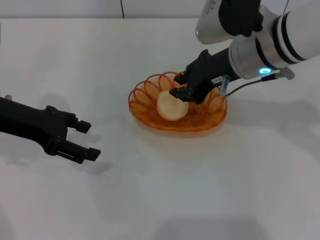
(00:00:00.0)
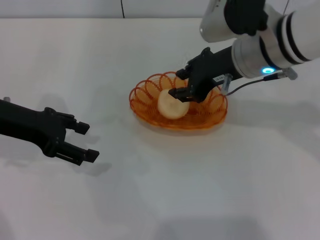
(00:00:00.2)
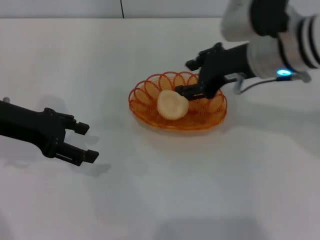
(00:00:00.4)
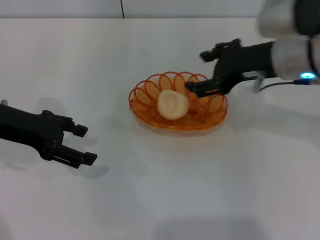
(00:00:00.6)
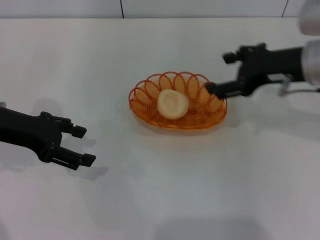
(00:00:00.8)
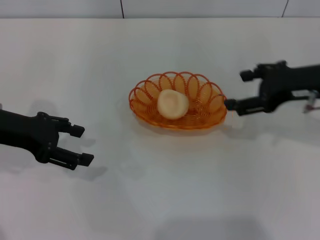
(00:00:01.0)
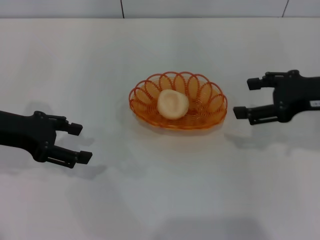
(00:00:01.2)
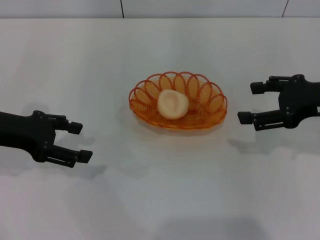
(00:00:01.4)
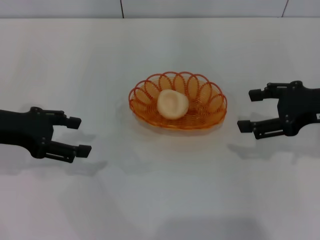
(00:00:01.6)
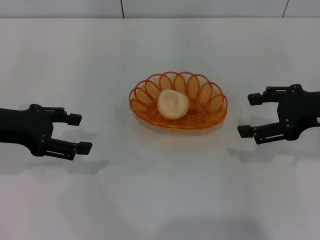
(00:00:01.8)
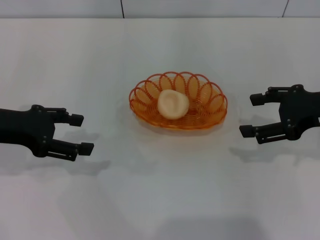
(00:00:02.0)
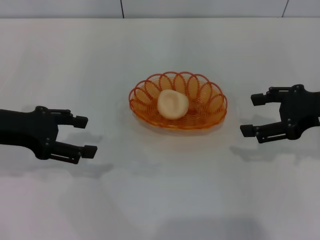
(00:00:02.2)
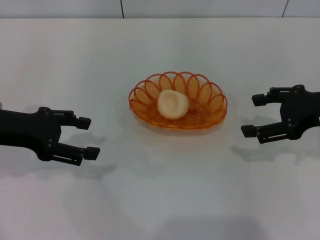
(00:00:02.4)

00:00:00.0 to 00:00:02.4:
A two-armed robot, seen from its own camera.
00:00:00.0 to 00:00:01.2: The right gripper travels to the right by about 15 cm, and opens.
00:00:01.2 to 00:00:02.4: The grippers make only small movements.
